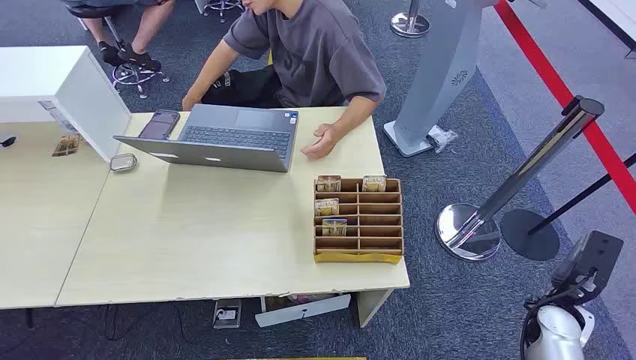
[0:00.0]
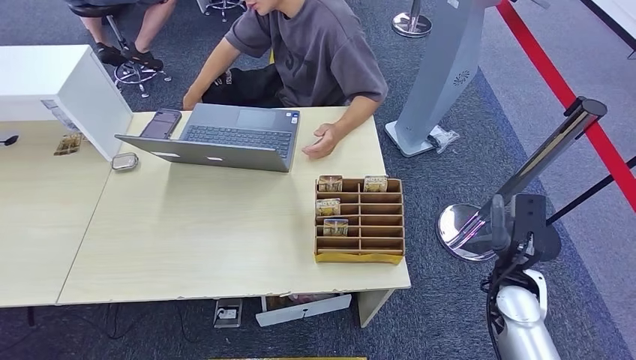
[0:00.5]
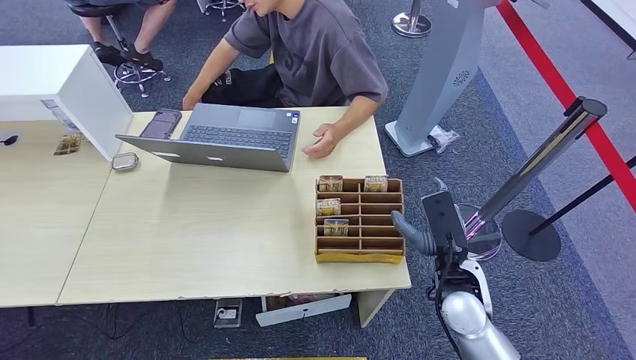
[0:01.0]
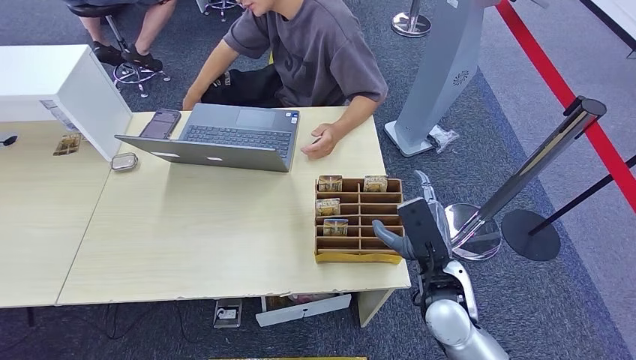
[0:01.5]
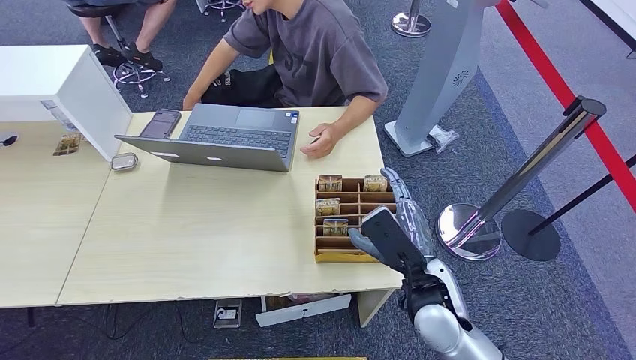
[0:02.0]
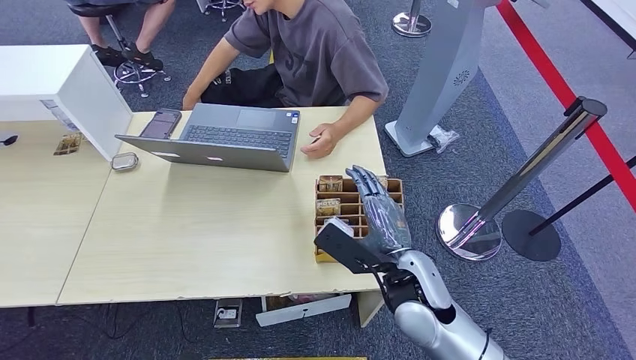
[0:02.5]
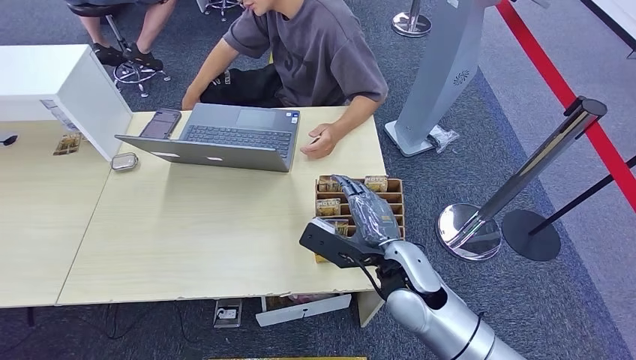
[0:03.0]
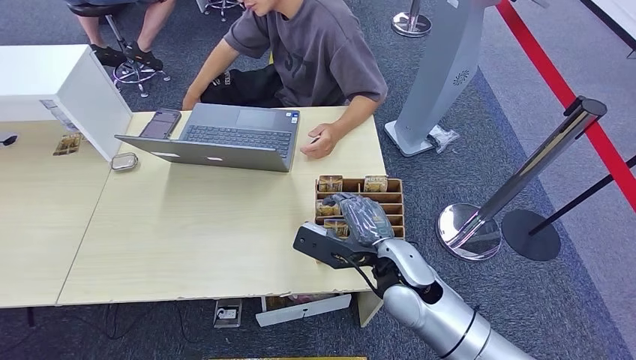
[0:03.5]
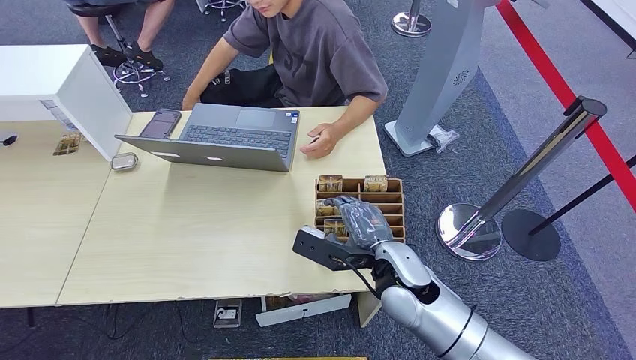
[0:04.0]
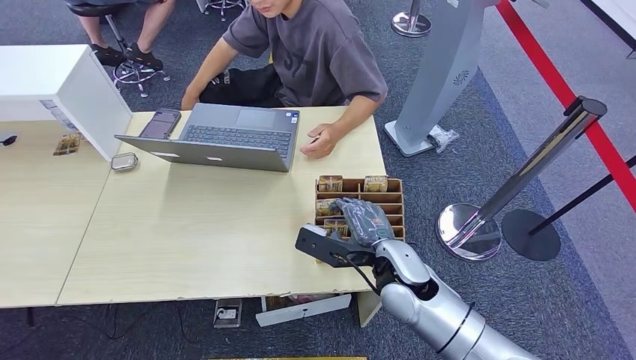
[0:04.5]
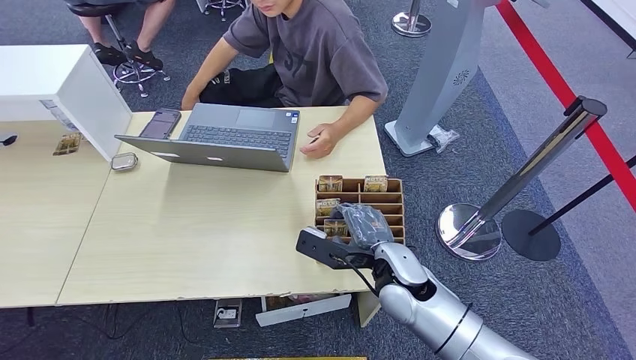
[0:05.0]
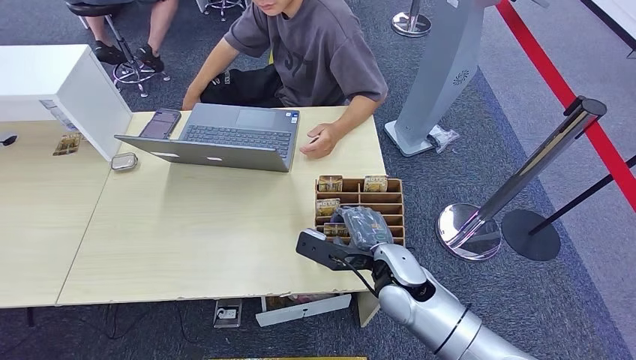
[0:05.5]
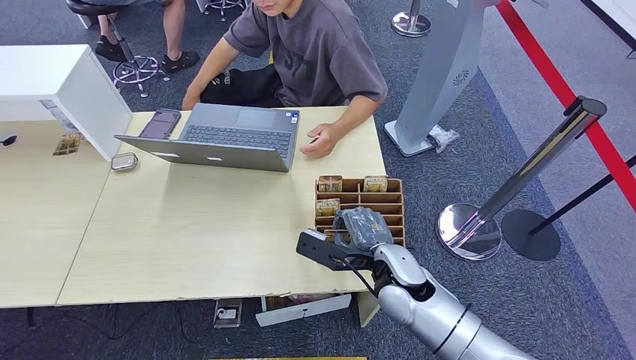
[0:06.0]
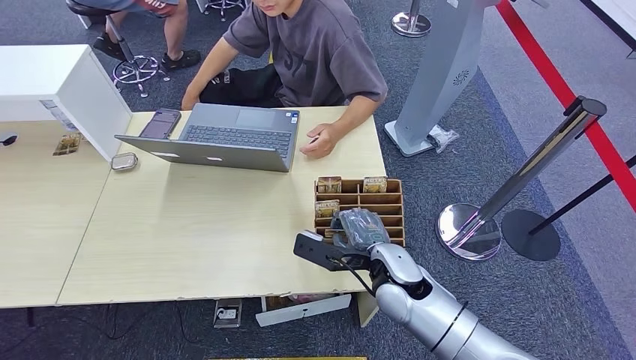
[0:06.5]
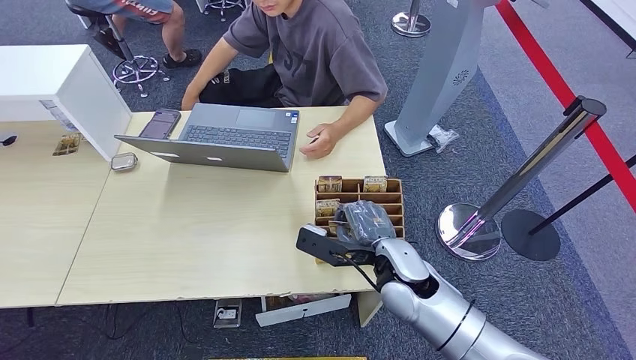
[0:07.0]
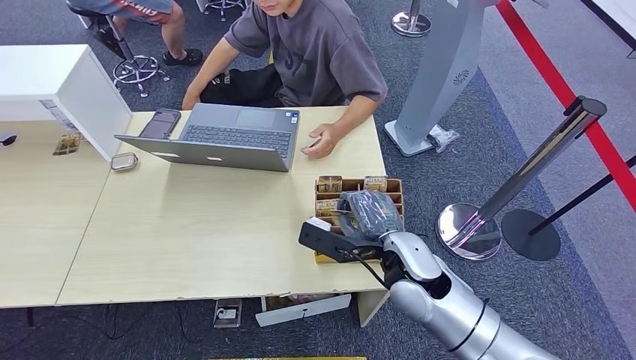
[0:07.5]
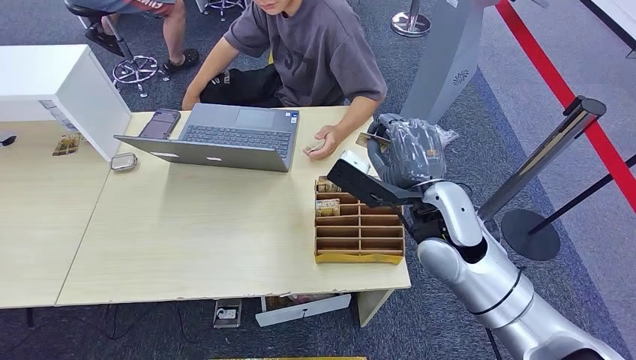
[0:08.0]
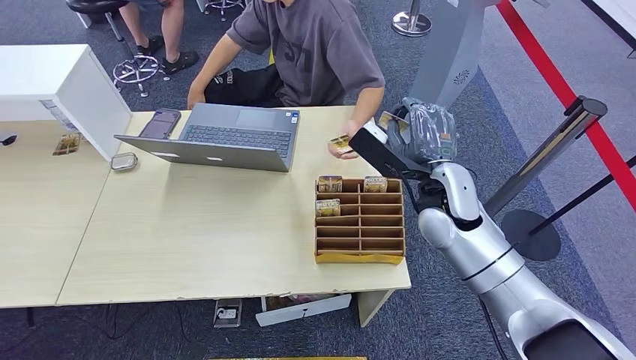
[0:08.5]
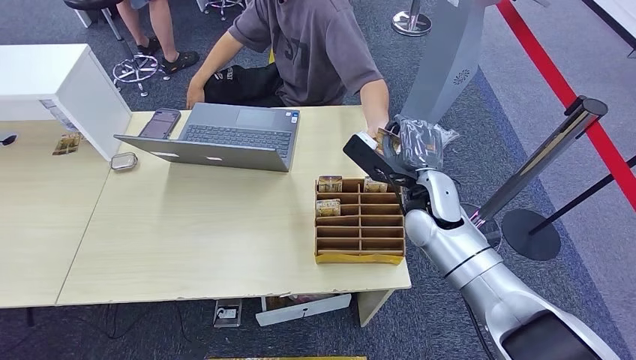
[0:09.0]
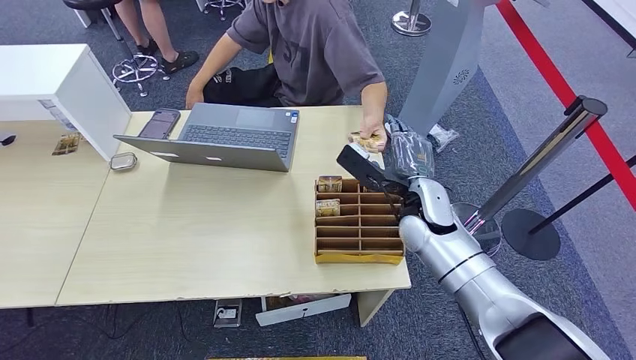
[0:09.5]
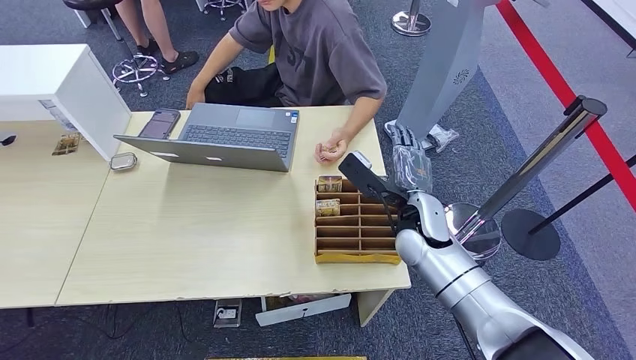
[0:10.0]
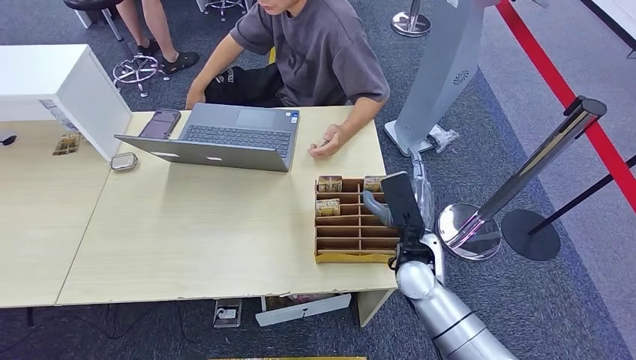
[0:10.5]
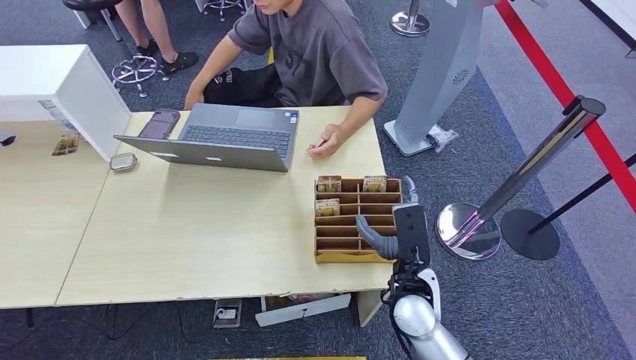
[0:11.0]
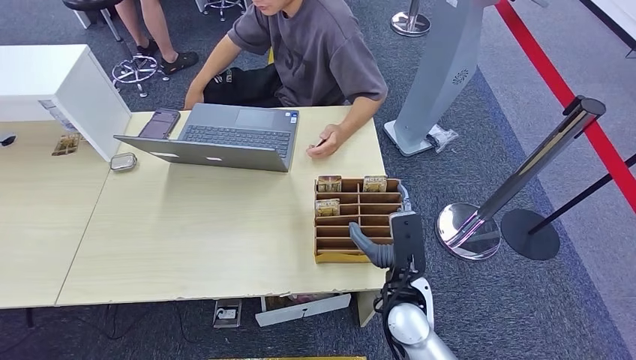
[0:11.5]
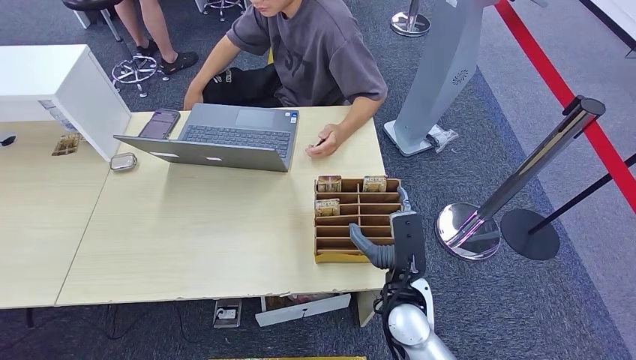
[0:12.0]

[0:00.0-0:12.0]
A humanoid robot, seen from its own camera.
Step, 0:00.0 to 0:07.5: Pick up the room card from the card holder.
Step, 0:08.0 to 0:12.0: Hand the room card to the target.
0:02.0 to 0:04.0: The right hand changes place by some 5 cm.
0:04.0 to 0:06.0: Both hands stay put.
0:06.0 to 0:08.0: The right hand is displaced upward, forward and to the right by approximately 15 cm.
0:08.0 to 0:10.0: The right hand travels downward by approximately 10 cm.
0:10.0 to 0:12.0: The right hand goes some 15 cm backward and downward.
